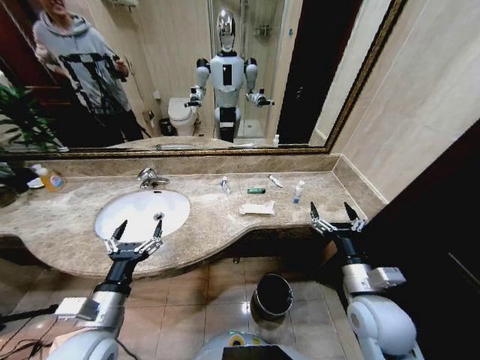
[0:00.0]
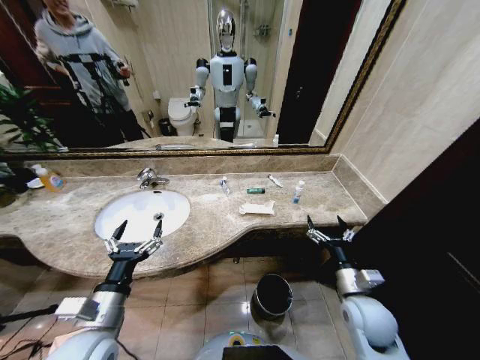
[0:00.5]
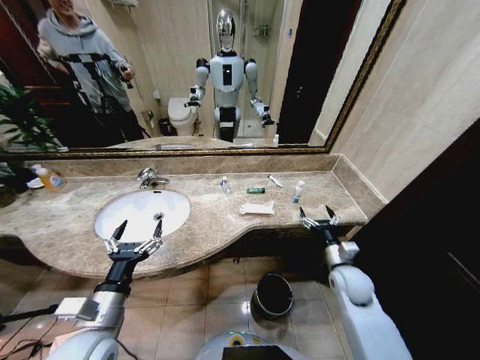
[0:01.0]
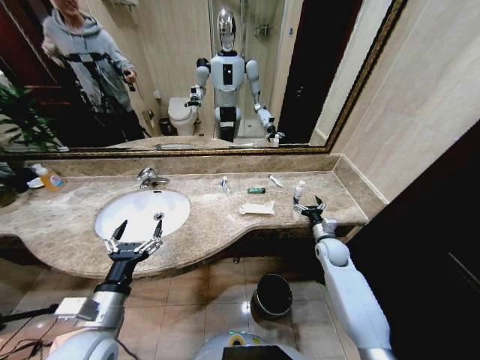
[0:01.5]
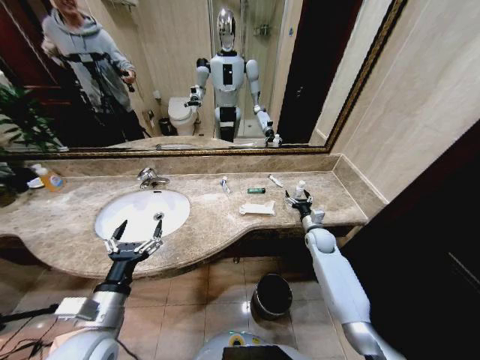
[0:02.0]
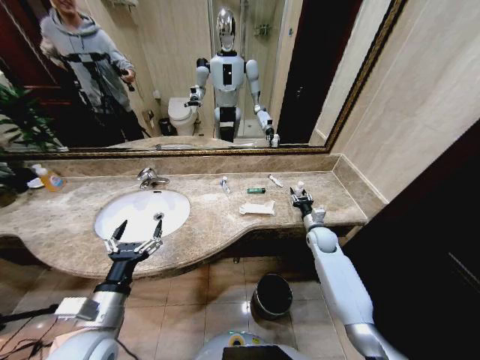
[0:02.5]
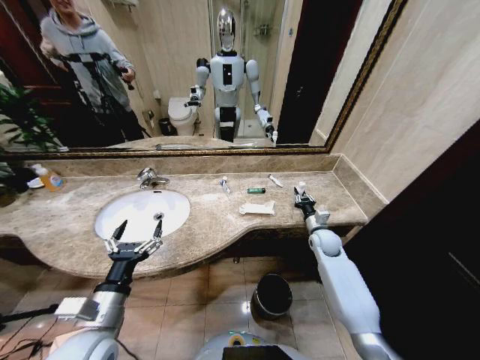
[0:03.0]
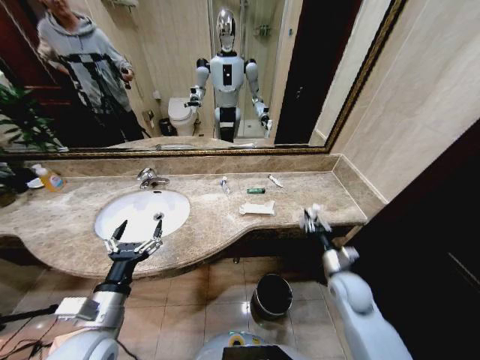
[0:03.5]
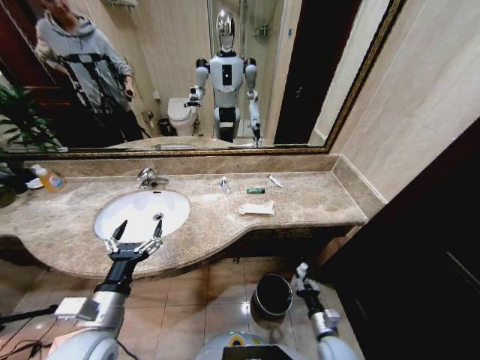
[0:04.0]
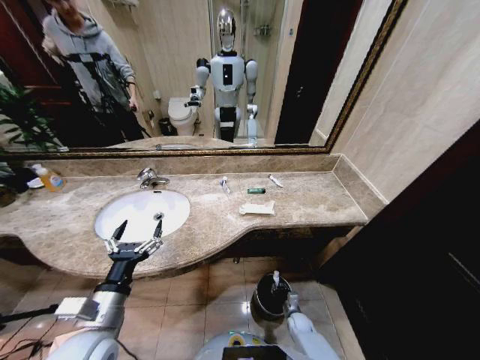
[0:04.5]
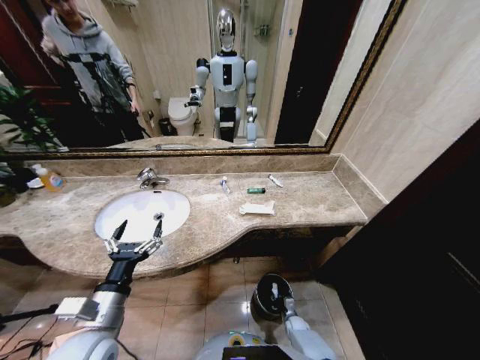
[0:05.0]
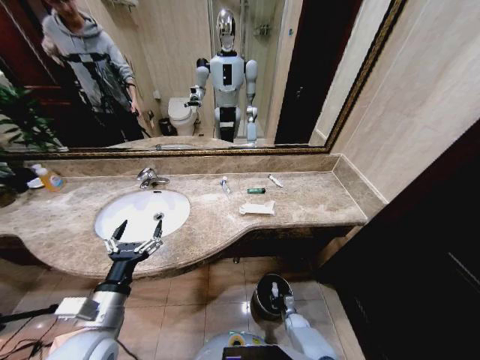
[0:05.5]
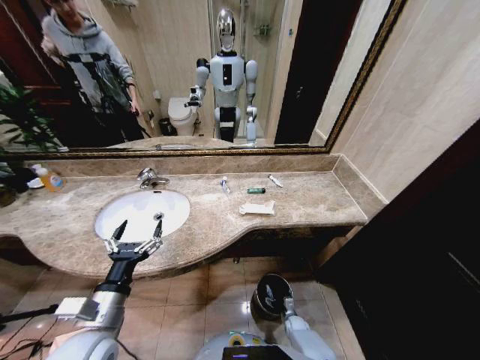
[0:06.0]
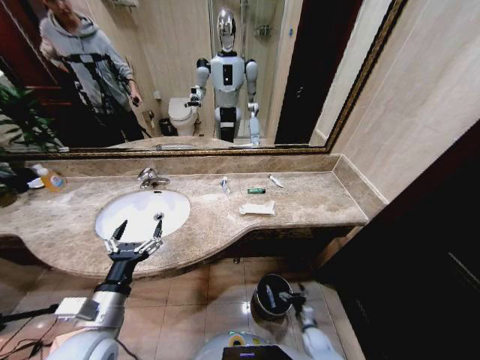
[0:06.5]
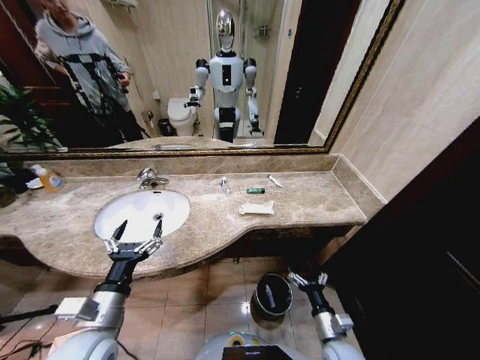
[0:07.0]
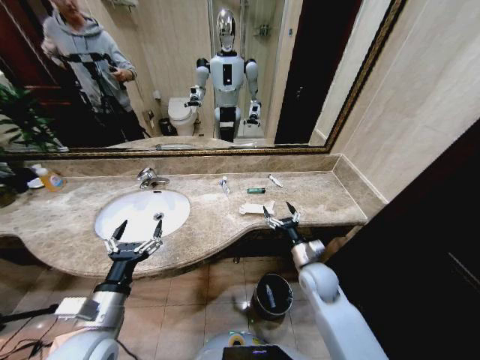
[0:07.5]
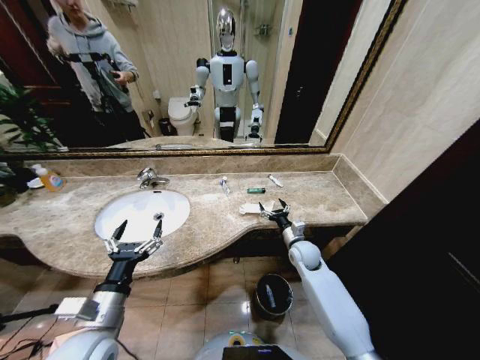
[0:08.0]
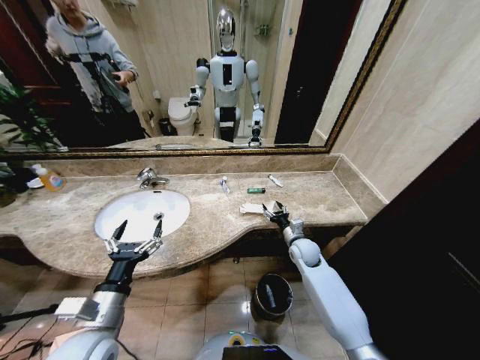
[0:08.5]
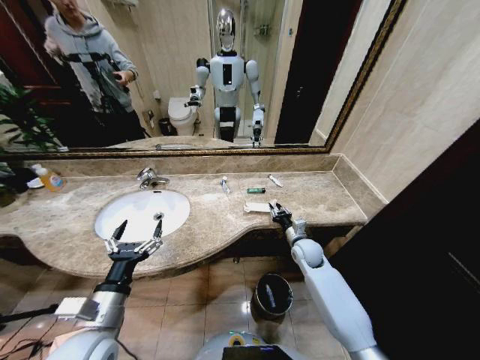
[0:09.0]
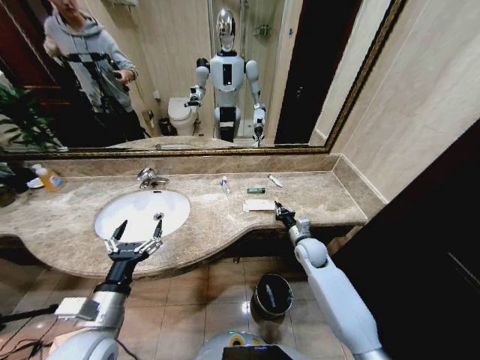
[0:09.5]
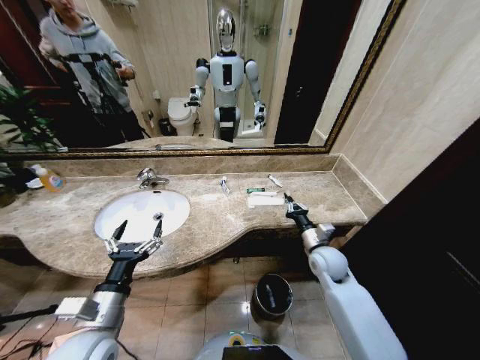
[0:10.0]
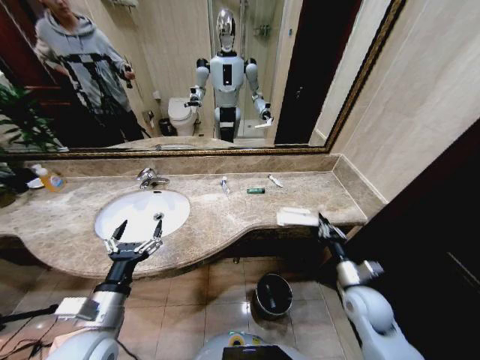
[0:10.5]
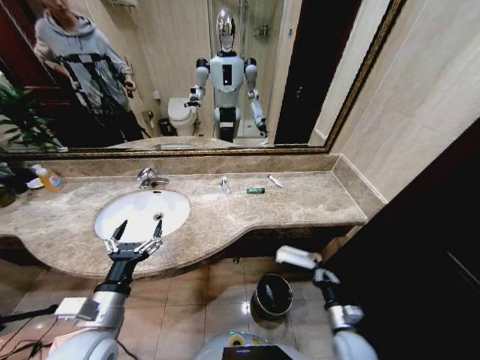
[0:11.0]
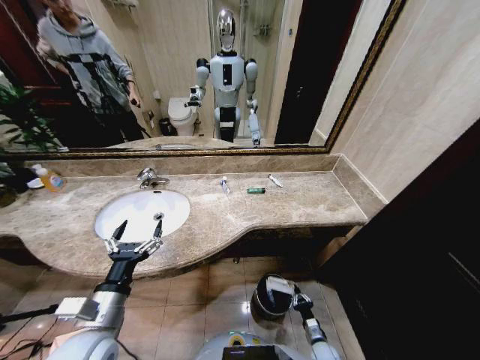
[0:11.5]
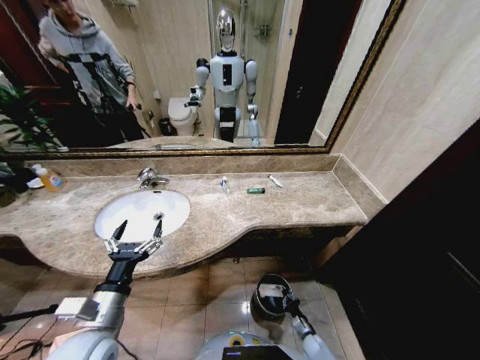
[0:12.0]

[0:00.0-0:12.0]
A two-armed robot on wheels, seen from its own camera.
Task of the whole recording: Pick up the trash from the sink and place it in the trash bin.
0:02.0 to 0:04.0: The right gripper heads backward and downward, covering some 35 cm, and closes up.
0:04.0 to 0:06.0: The right gripper goes roughly 25 cm downward and forward, and opens its fingers.
0:06.0 to 0:08.0: The right gripper is displaced upward and forward by about 35 cm.
0:08.0 to 0:10.0: The right gripper is displaced upward and backward by some 5 cm, and closes its fingers.
0:10.0 to 0:12.0: The right gripper goes about 40 cm downward and backward.

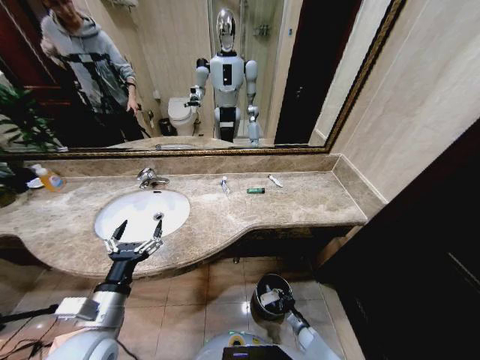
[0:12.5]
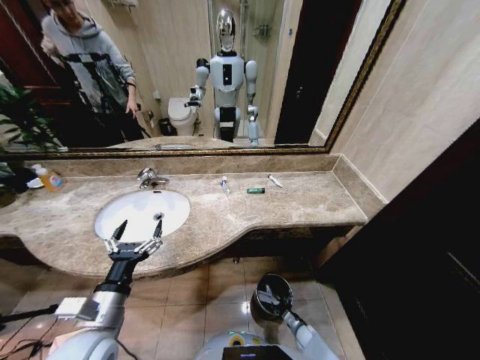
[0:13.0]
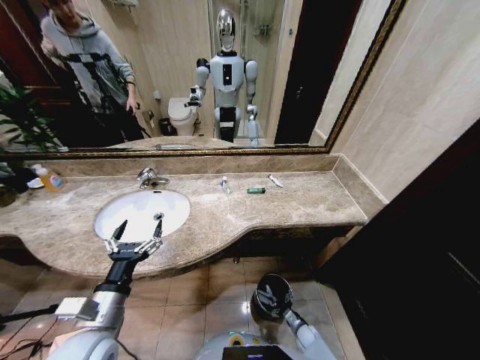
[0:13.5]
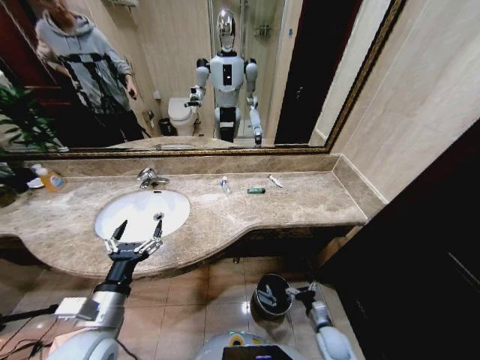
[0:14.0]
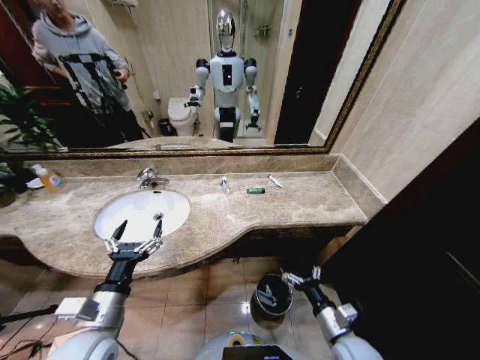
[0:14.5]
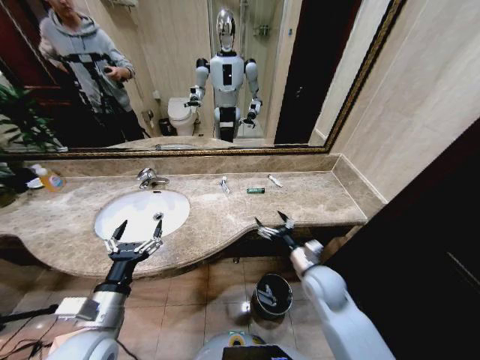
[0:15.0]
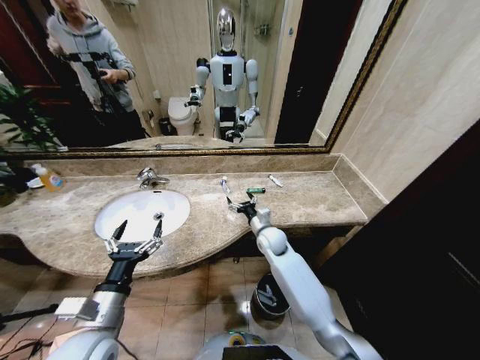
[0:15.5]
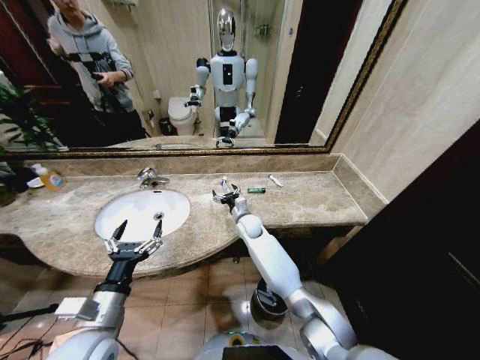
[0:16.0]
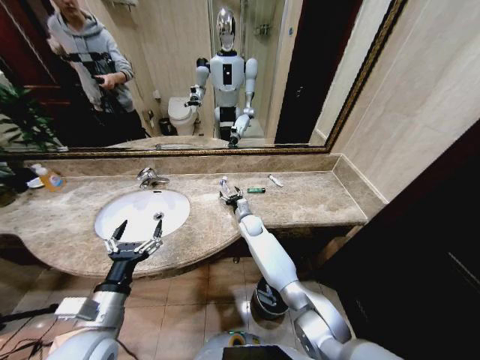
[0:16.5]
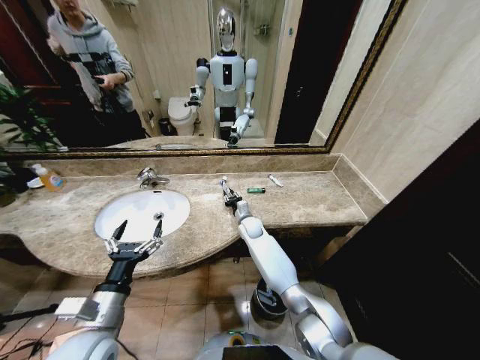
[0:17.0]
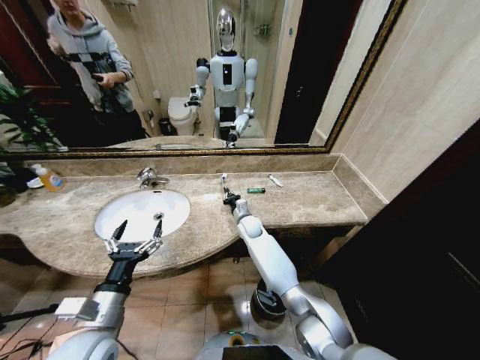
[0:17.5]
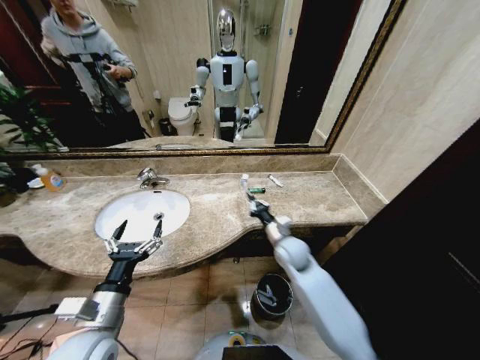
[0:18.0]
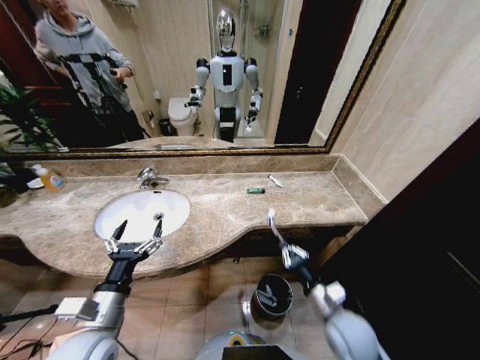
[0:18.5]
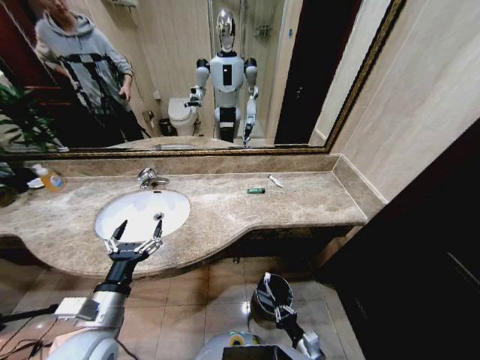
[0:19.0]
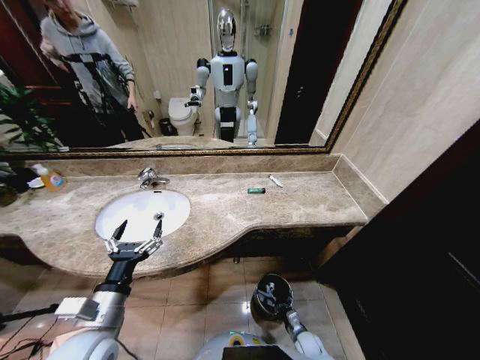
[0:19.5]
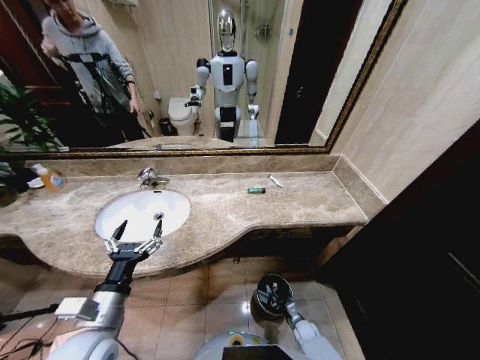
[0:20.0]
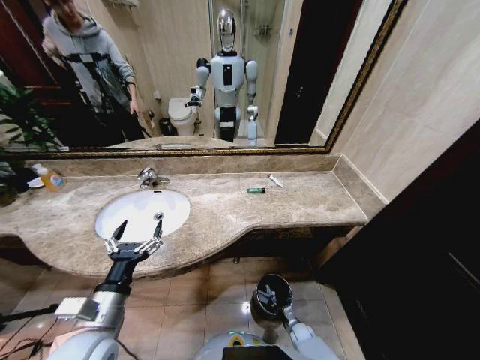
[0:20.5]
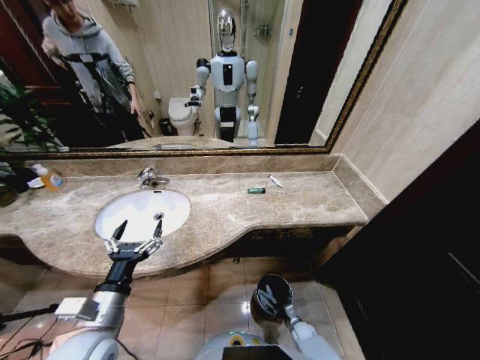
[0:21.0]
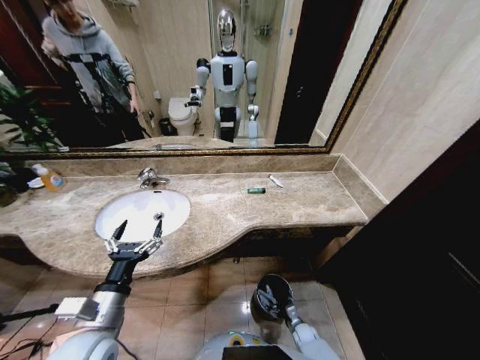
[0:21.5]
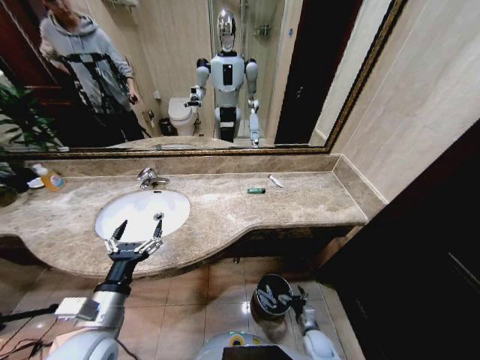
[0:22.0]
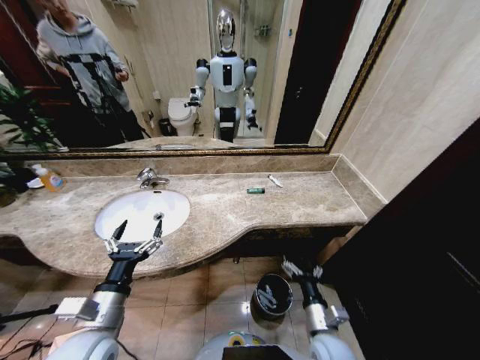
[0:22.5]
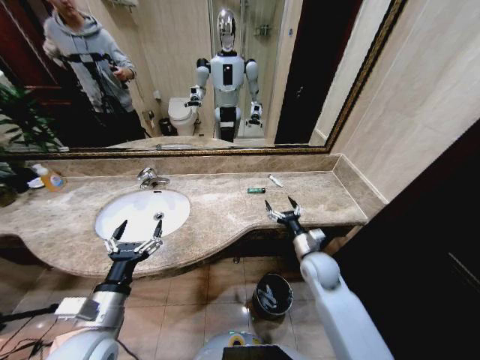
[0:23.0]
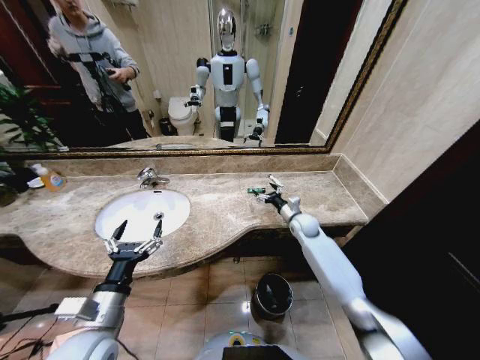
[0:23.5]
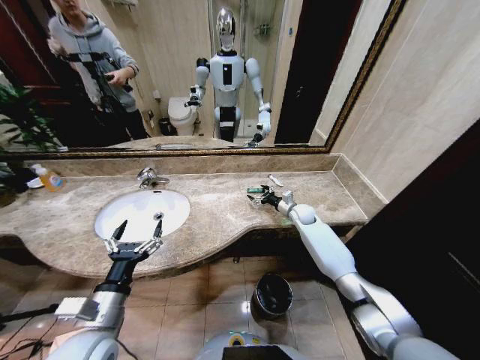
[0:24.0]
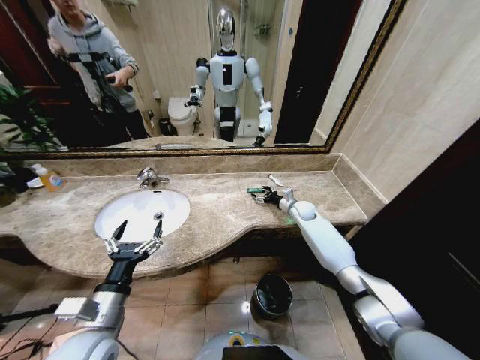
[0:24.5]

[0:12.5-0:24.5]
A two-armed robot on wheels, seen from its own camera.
Task of the whole recording: Pick up the trash from the sink and place it in the trash bin.
0:12.5 to 0:14.5: The right gripper heads upward, covering approximately 35 cm, and opens up.
0:14.5 to 0:16.5: The right gripper moves forward and to the left, about 40 cm.
0:16.5 to 0:18.5: The right gripper goes approximately 40 cm backward and to the right, and closes.
0:18.5 to 0:20.5: The right gripper shifts some 35 cm downward.
0:20.5 to 0:22.5: The right gripper heads upward, covering about 30 cm, and opens its fingers.
0:22.5 to 0:24.5: The right gripper is displaced forward by approximately 40 cm.

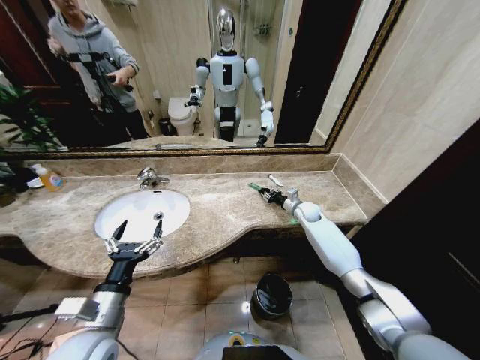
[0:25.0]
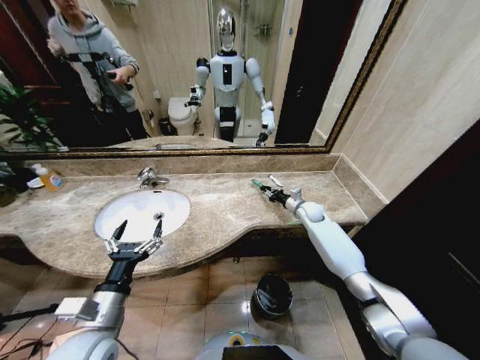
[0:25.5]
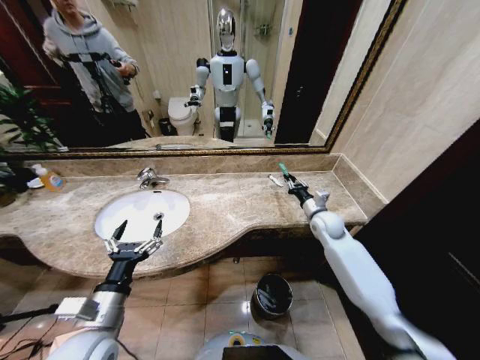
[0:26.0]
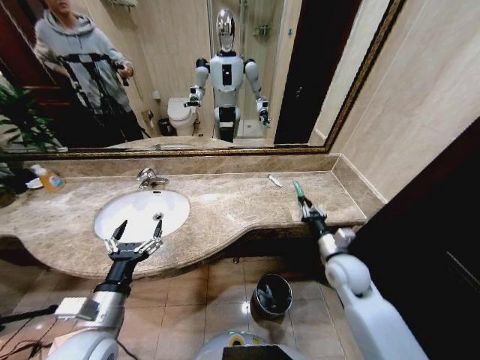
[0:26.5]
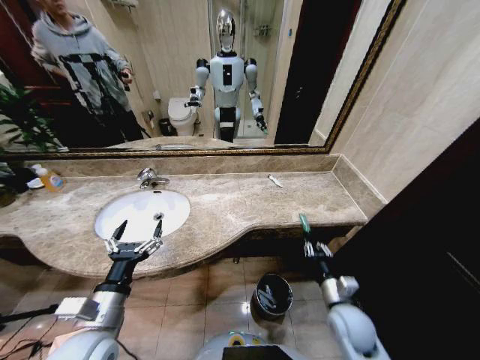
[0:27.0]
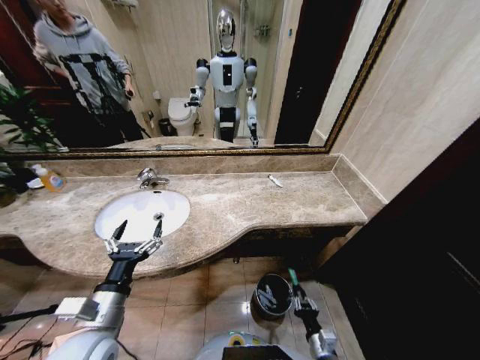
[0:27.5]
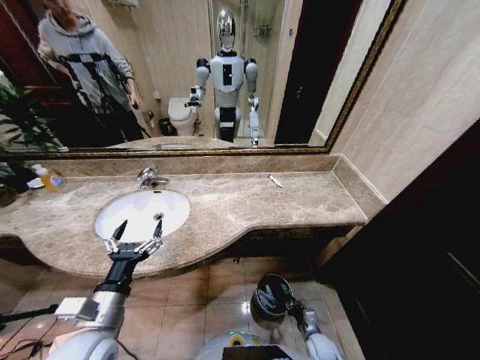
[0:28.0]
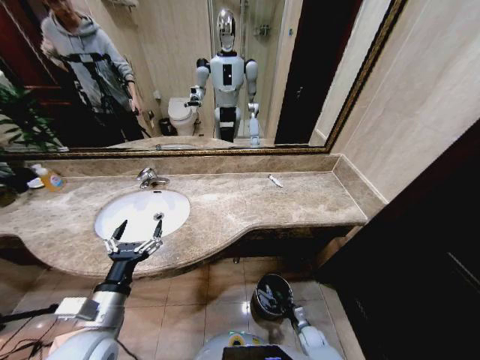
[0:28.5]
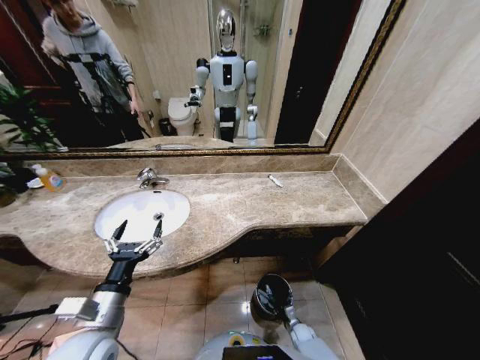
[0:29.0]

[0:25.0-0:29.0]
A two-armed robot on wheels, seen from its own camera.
Task of the whole recording: Pick up the trash from the sink and place it in the trash bin.
0:25.0 to 0:27.0: The right gripper goes about 35 cm backward.
0:27.0 to 0:29.0: The right gripper is displaced downward by about 35 cm.
